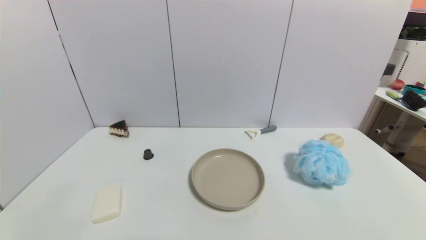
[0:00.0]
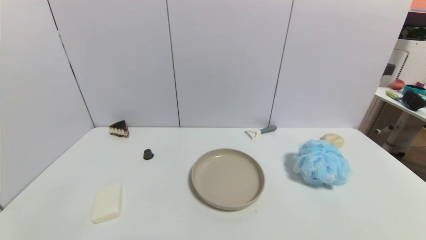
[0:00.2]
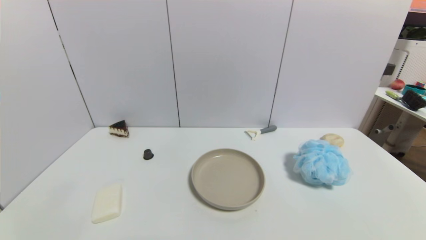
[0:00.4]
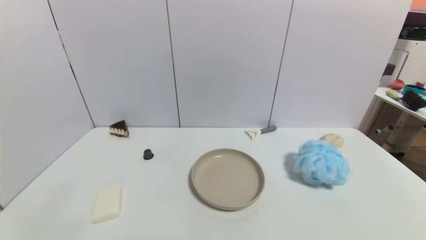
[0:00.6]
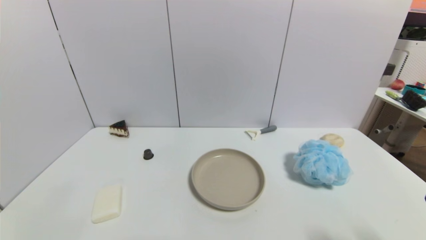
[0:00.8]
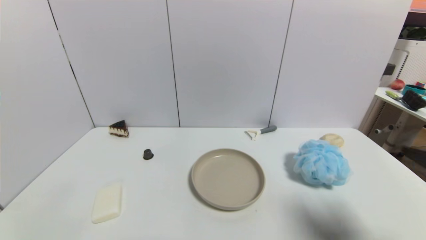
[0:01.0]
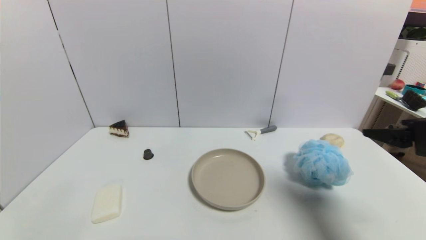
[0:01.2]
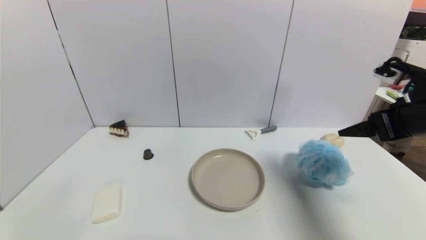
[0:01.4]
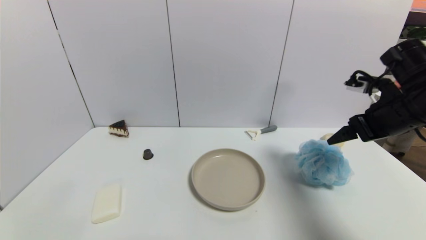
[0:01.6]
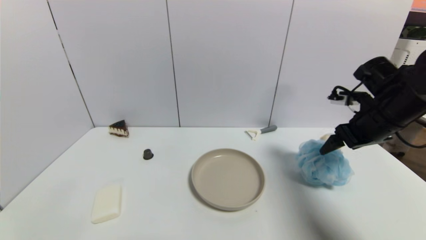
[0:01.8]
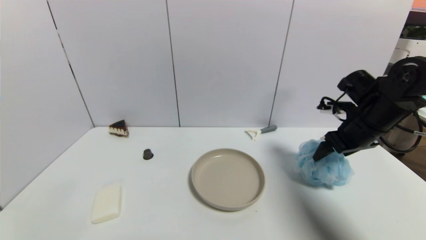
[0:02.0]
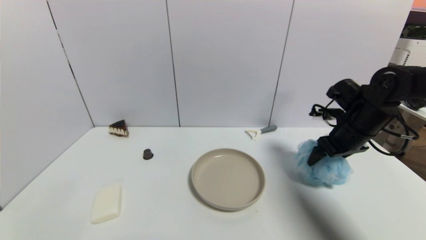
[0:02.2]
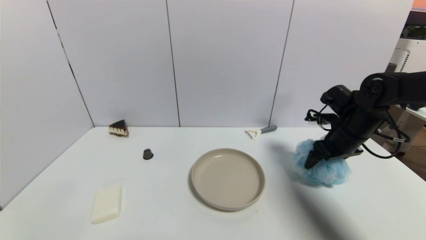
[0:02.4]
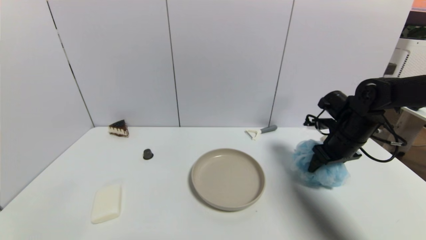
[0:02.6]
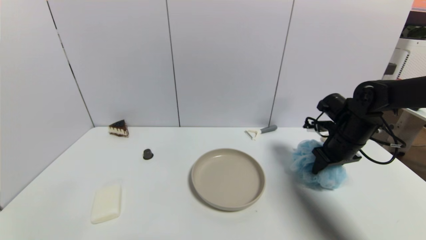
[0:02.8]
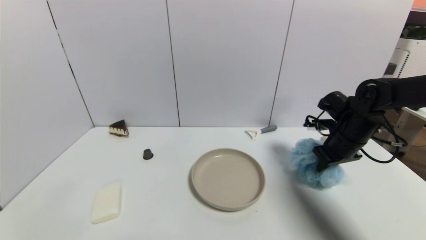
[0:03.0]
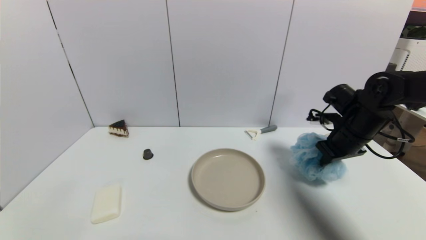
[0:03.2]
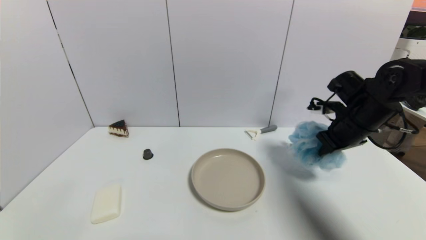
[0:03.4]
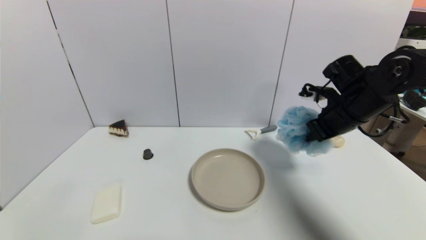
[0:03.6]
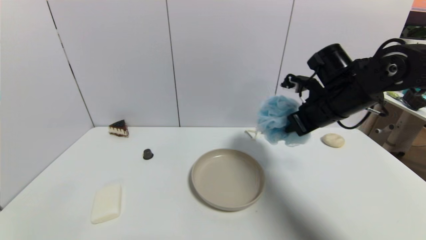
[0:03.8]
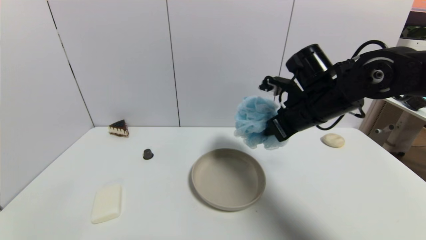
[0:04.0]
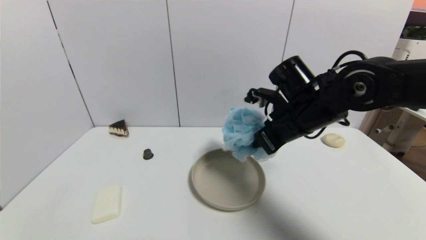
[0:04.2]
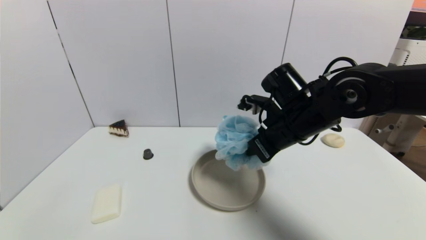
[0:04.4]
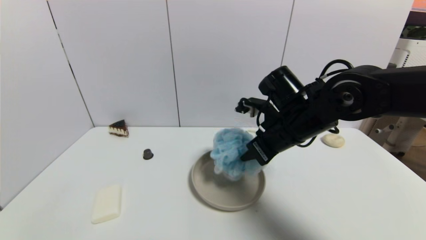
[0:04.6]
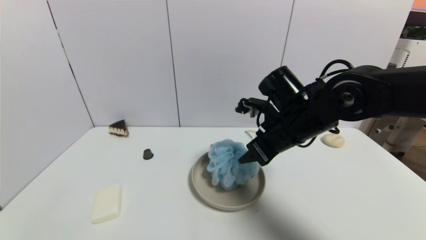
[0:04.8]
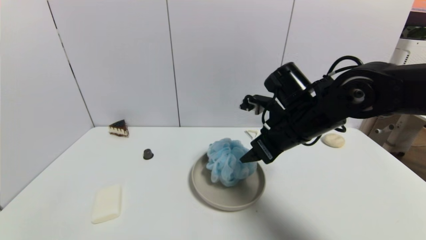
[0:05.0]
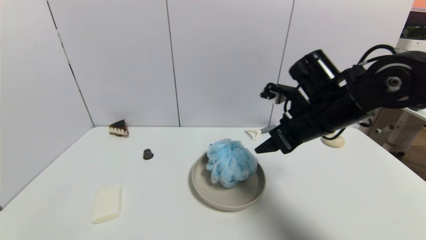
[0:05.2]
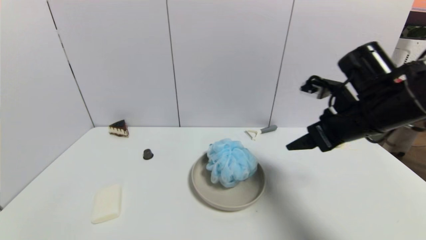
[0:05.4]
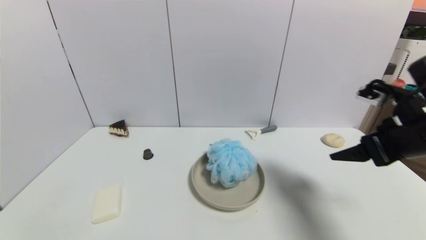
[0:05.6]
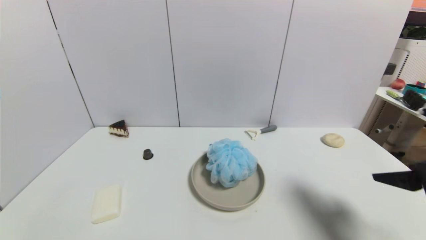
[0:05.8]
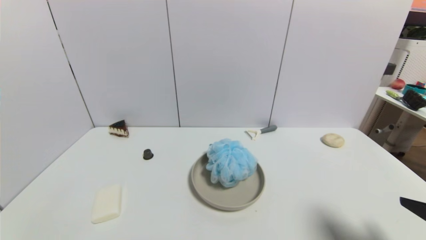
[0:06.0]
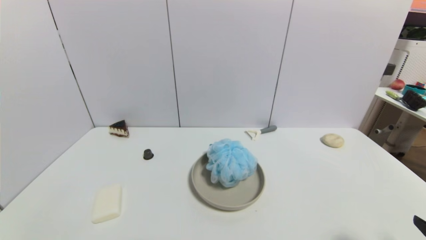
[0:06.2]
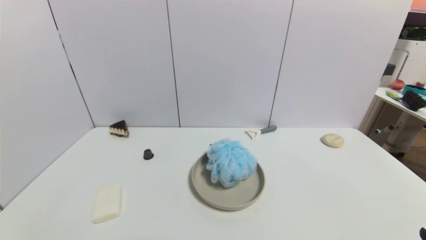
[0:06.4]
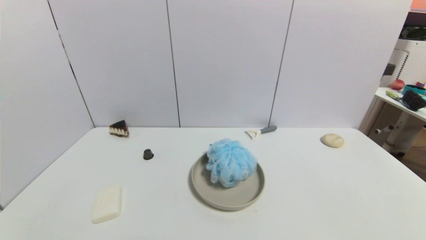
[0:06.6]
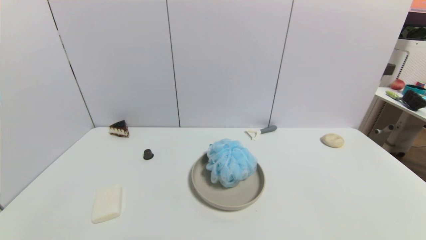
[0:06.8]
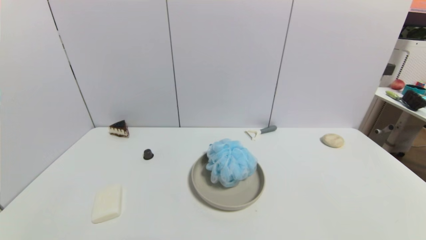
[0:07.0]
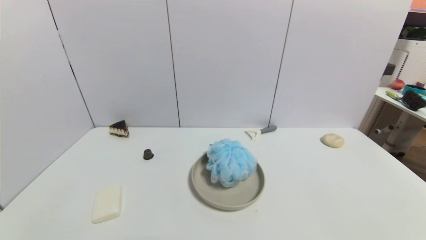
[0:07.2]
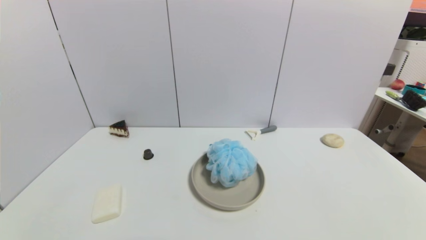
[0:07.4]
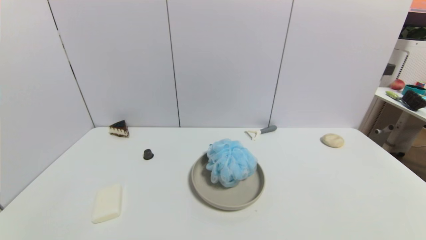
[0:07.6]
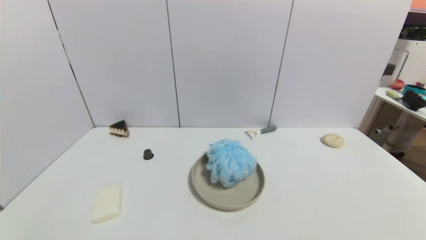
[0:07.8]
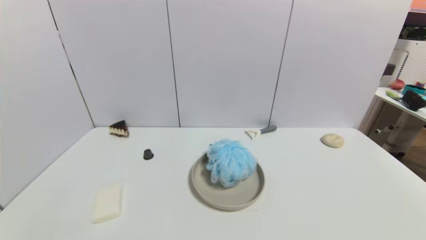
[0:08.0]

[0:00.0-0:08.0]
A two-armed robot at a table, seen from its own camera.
Task of the whole recording: use a gripper to pick the target object and place on the brown plate.
Step, 0.0 to 3.2 s: Grasp the shower sphere with the right gripper.
Step, 3.4 to 5.2 s: Place the shower sphere on the brown plate with the right gripper.
0.0 to 1.6 s: The right gripper moves forward and upward, approximately 35 cm.
1.6 to 3.2 s: The right gripper heads downward and forward, covering roughly 10 cm, and closes.
3.2 to 4.8 s: The right gripper shifts some 15 cm to the left, and opens up.
4.8 to 6.4 s: The right gripper moves backward and to the right, some 35 cm, and opens its fingers.

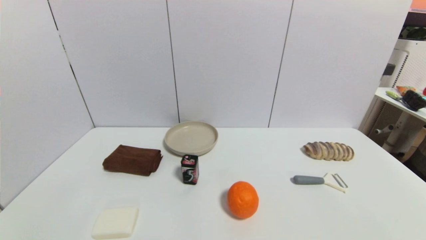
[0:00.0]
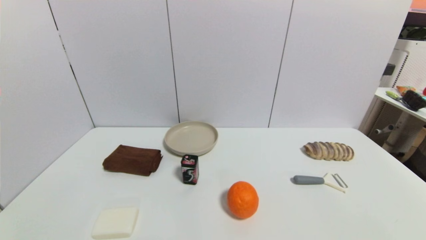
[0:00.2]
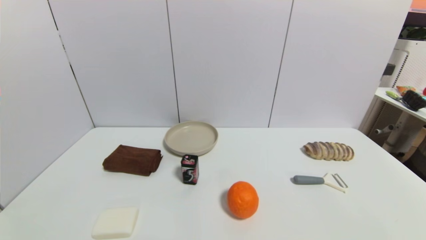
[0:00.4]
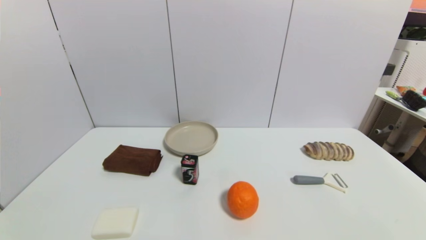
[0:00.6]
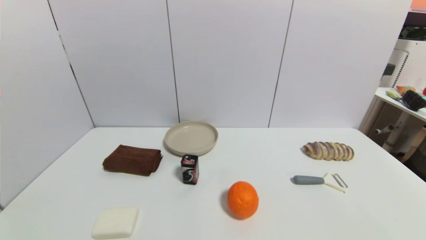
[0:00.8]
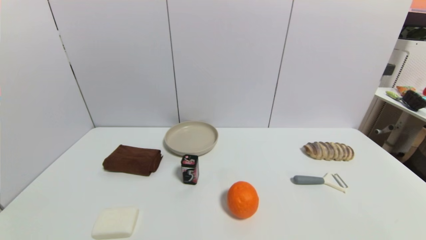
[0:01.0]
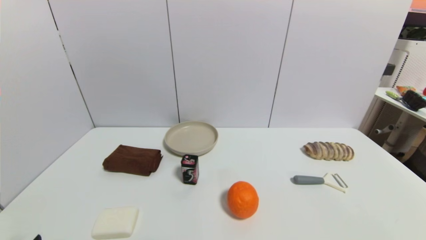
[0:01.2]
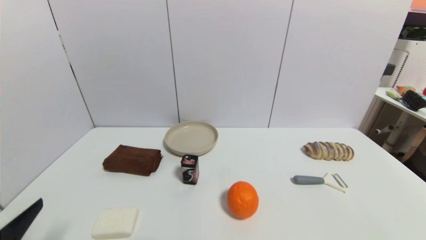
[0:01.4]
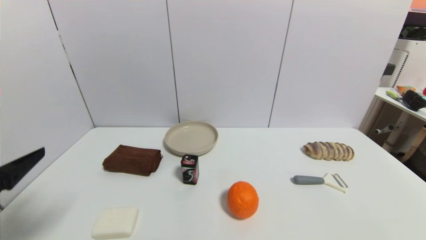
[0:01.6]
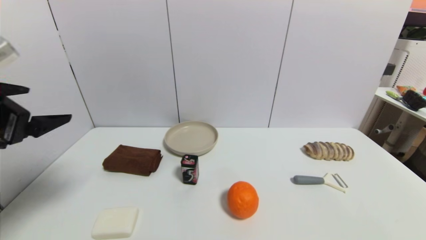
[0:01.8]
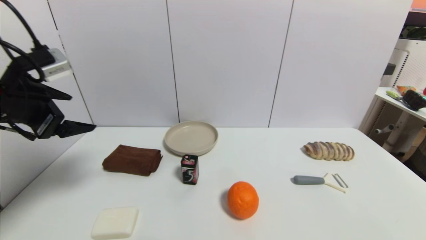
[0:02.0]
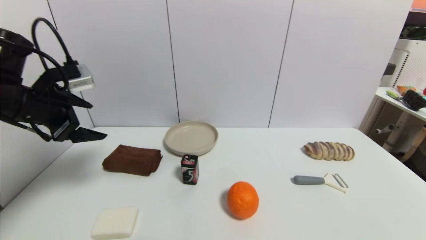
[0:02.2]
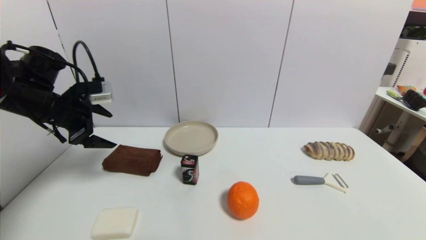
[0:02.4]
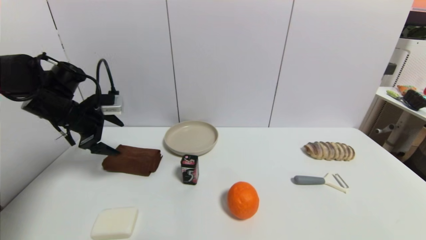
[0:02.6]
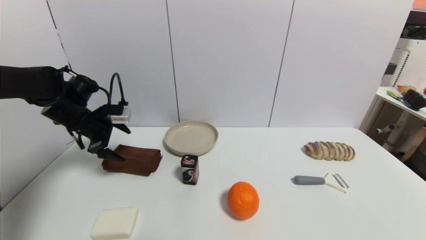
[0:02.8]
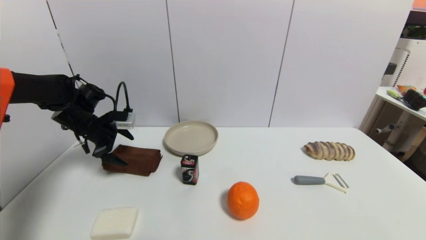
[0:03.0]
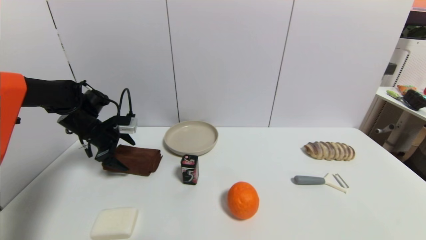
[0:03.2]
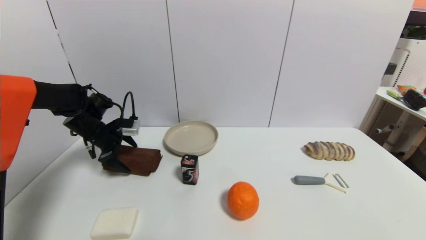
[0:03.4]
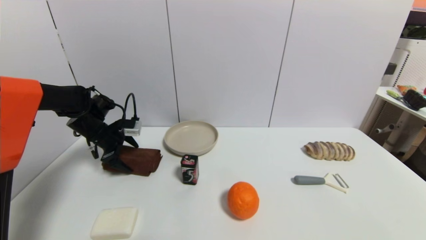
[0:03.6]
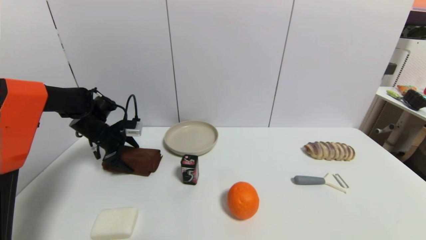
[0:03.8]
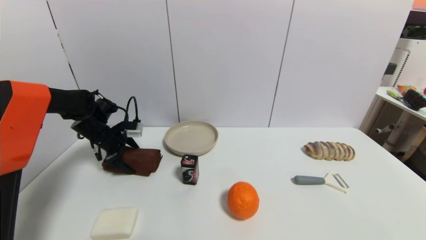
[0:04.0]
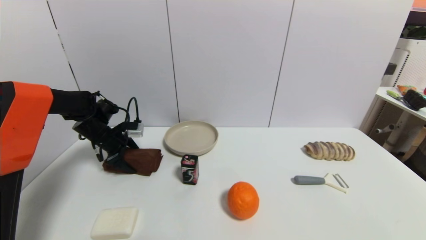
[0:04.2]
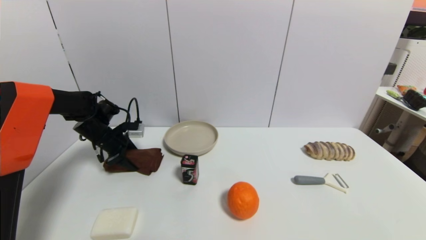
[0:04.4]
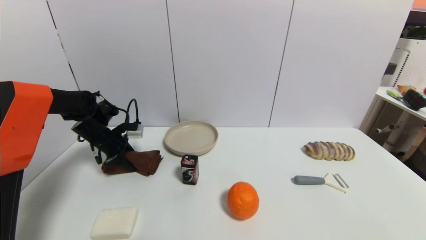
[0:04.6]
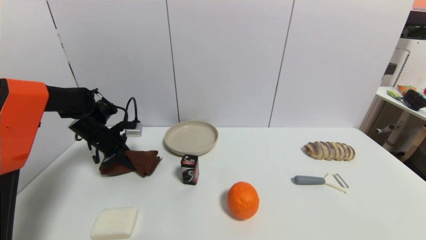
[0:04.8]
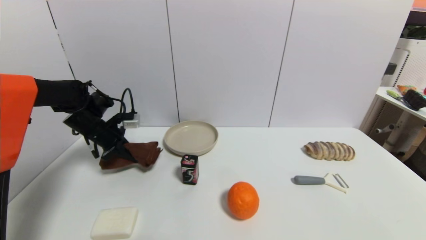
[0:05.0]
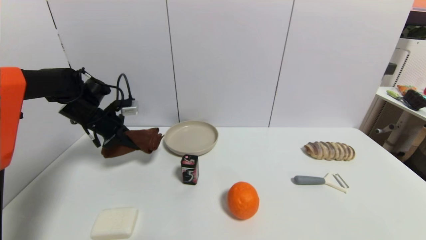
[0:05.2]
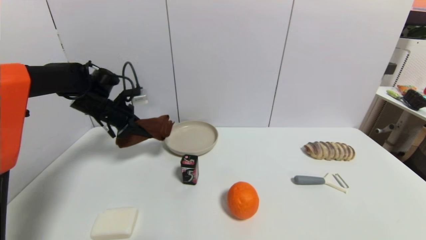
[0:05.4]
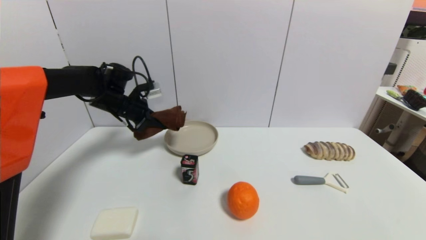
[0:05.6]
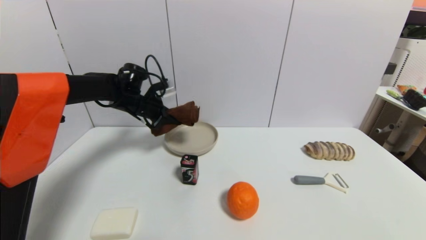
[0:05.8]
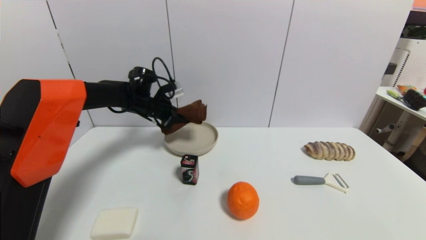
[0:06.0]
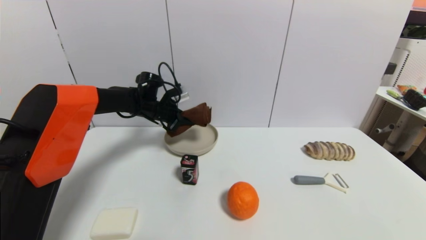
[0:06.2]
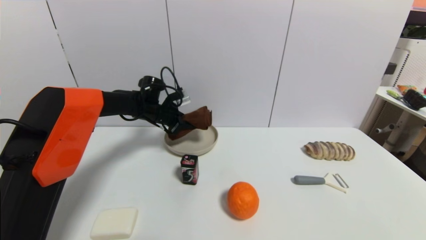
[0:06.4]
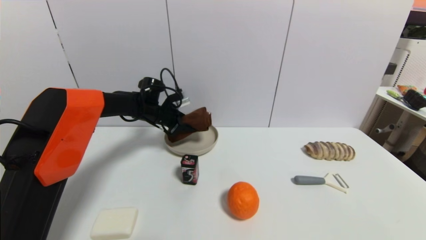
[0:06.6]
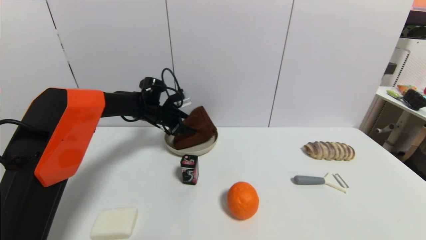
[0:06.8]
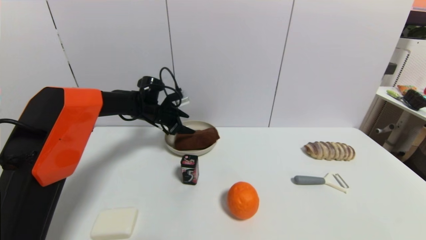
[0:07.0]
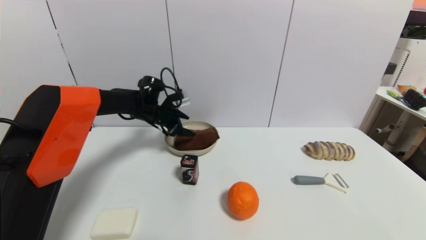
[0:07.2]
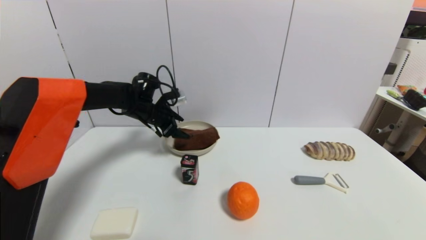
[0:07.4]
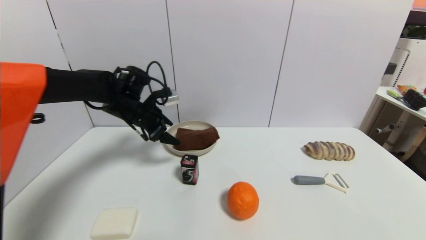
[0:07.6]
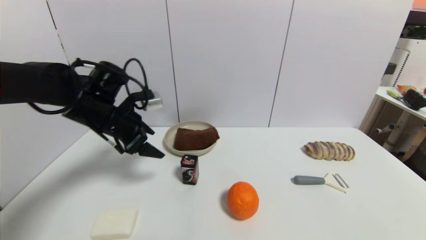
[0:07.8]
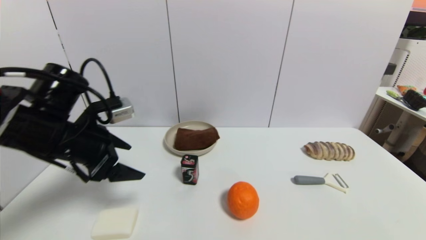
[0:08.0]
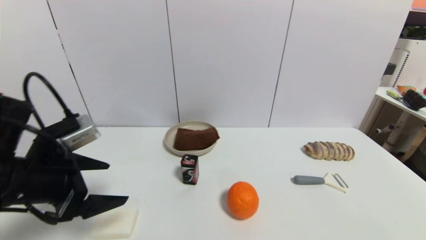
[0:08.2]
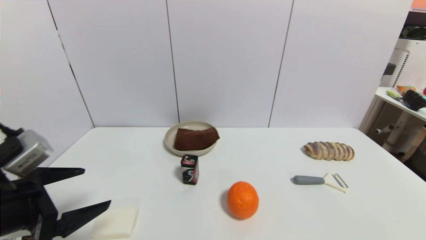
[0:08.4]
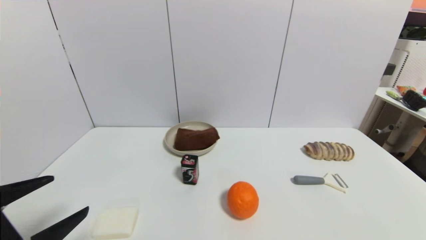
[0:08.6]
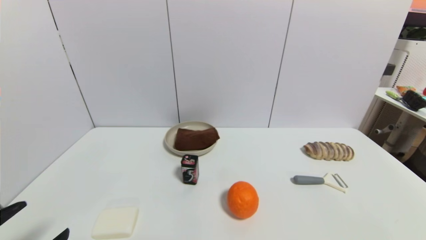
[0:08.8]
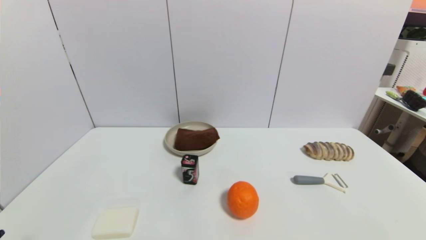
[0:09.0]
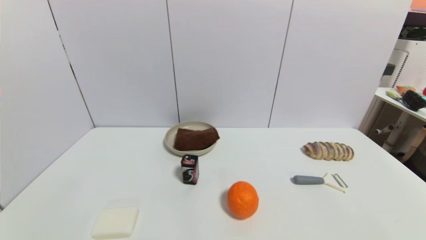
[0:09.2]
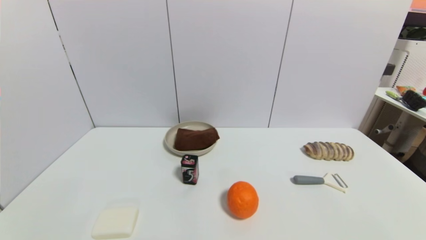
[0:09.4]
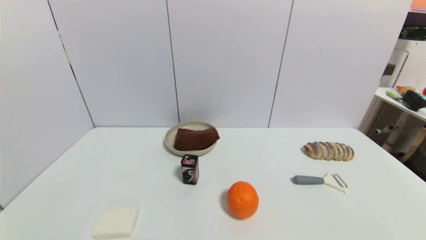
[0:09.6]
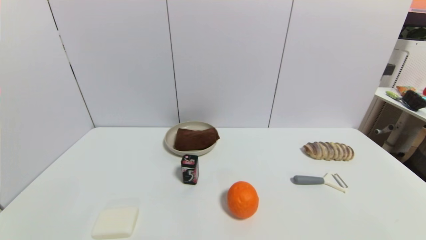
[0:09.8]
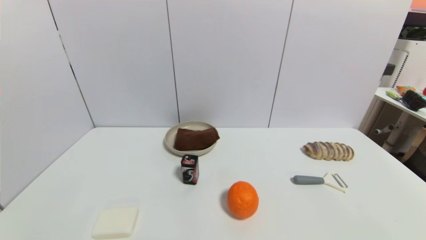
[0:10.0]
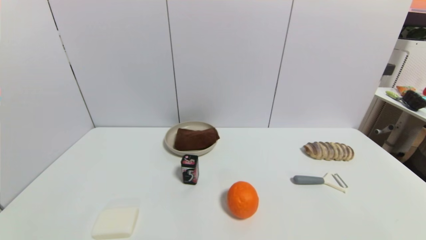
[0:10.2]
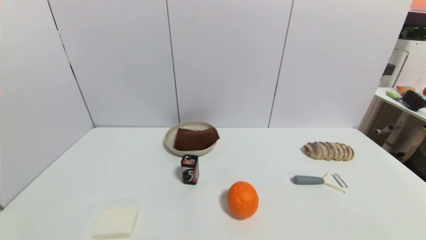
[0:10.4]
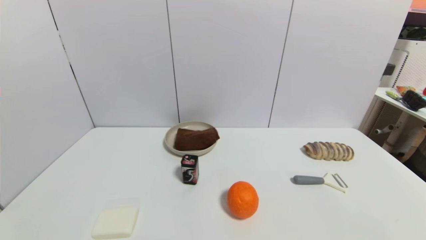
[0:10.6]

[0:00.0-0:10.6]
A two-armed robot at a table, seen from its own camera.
Task of the whole recording: use a gripper to pick the target object and place on the brown plate.
Step, 0.0 to 4.8 s: Grasp the brown towel with the left gripper.
Step, 5.0 to 7.0 s: Place the brown towel on the brown plate with the left gripper.
0.0 to 1.6 s: The left gripper travels upward and forward by roughly 20 cm.
1.6 to 3.0 s: The left gripper travels forward by about 30 cm.
3.0 to 4.6 s: The left gripper moves some 5 cm, and closes.
4.6 to 6.0 s: The left gripper moves to the right, upward and forward, some 15 cm.
6.0 to 7.6 s: The left gripper travels backward by approximately 10 cm, and opens.
7.6 to 9.0 s: The left gripper shifts approximately 40 cm backward.
